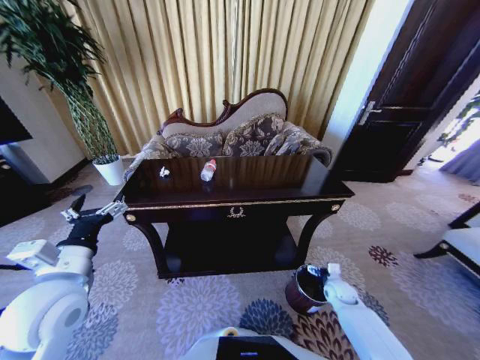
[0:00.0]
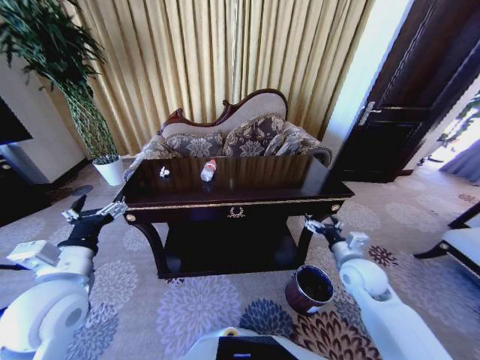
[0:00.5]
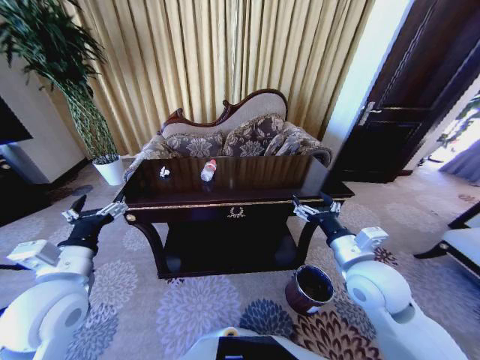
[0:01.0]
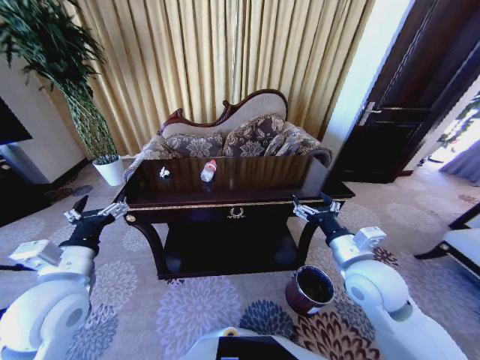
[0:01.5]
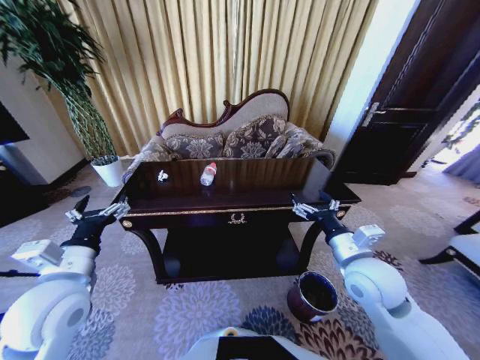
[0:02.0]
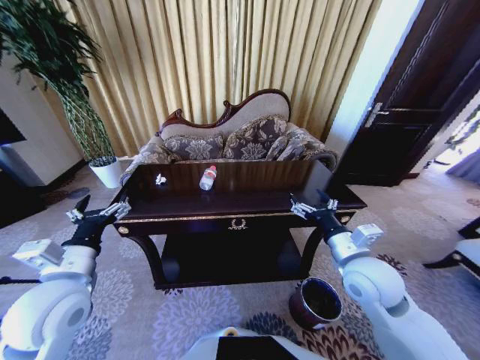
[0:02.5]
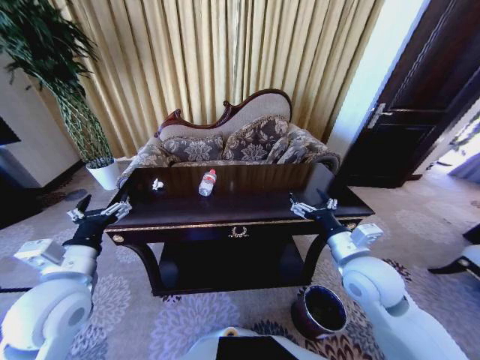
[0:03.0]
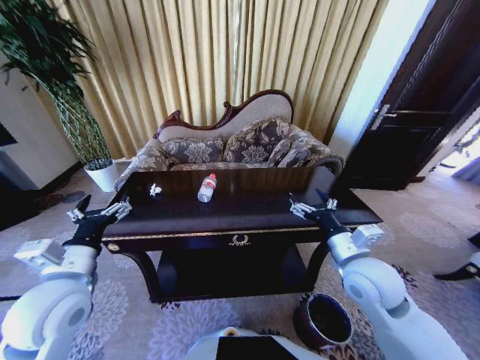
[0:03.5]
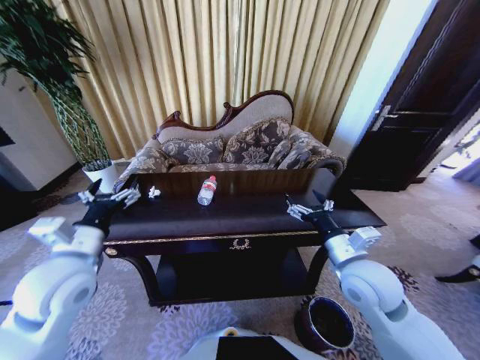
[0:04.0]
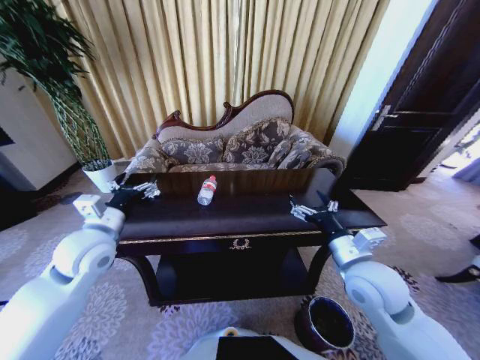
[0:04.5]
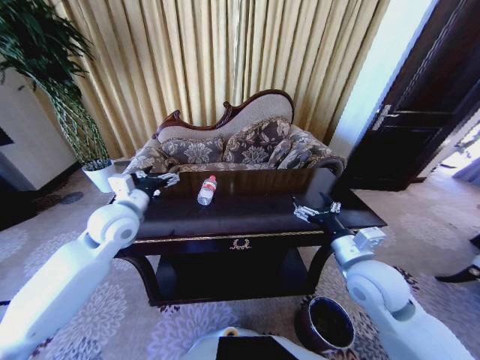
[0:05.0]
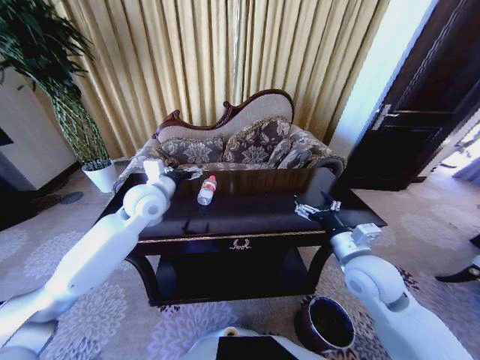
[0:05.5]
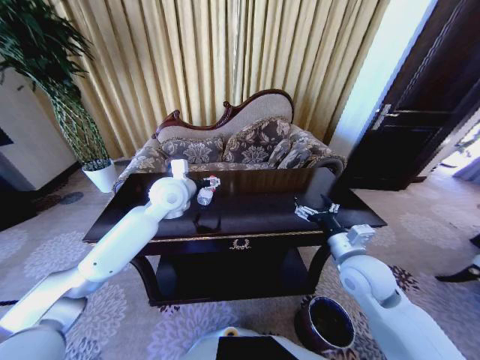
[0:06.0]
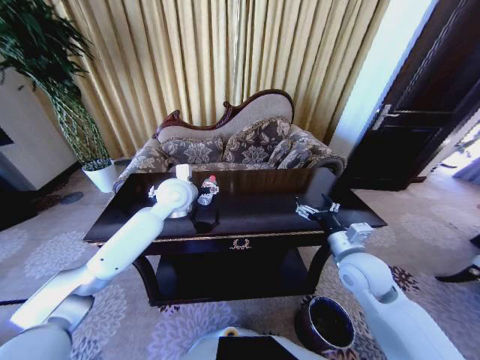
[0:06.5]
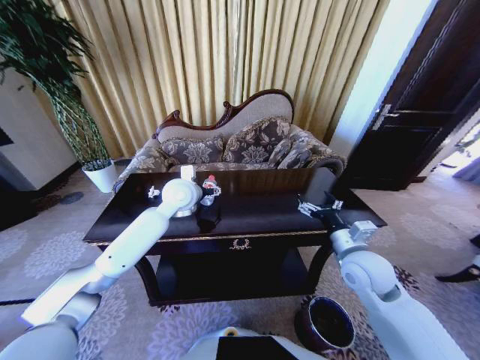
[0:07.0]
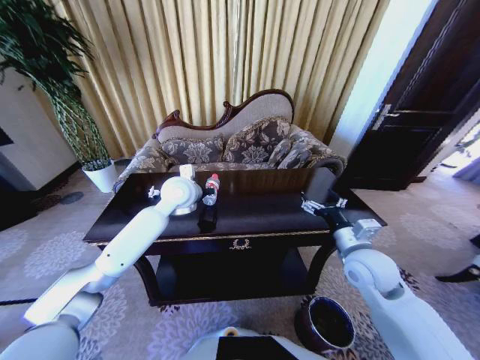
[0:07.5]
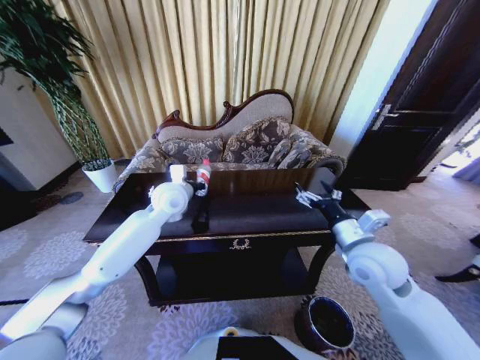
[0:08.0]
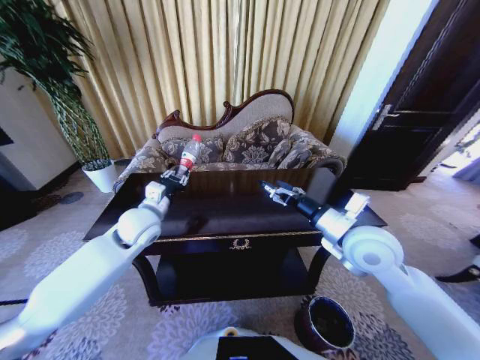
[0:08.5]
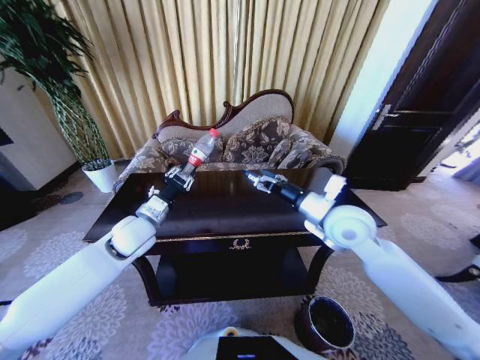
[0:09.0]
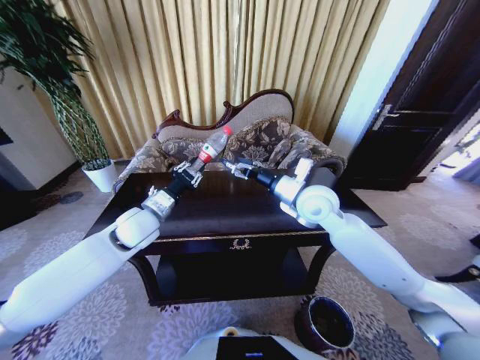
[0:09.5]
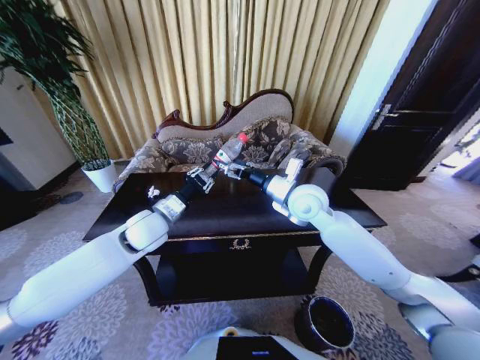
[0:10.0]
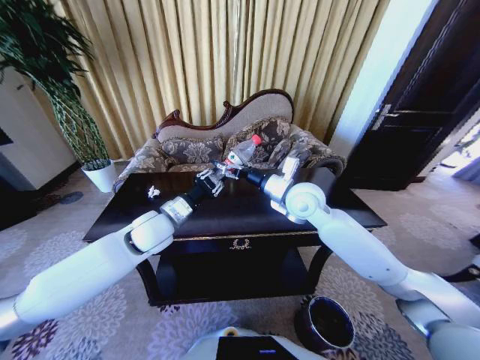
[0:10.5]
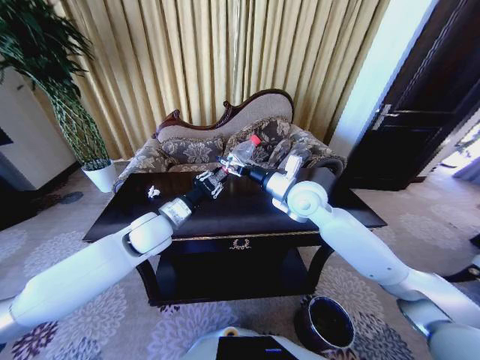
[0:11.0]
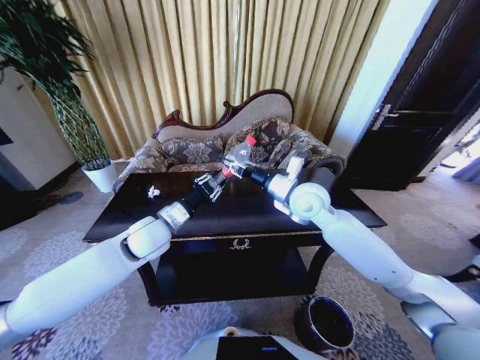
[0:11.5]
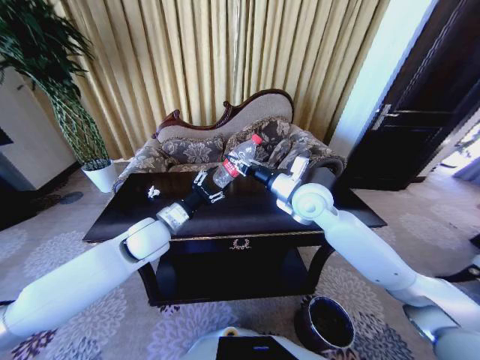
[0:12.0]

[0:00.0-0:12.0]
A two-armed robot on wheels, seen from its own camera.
Task of the whole recording: Move to the front of the table and place the trash on the table into the trash bin.
0:00.0 to 0:02.0: The right gripper moves upward, roughly 30 cm.
0:04.0 to 0:06.0: The left gripper travels forward and to the right by about 25 cm.
0:06.0 to 0:08.0: The left gripper closes up.
0:08.0 to 0:10.0: The right gripper heads forward and to the left, covering approximately 20 cm. Meanwhile the left gripper moves backward, some 10 cm.
0:10.0 to 0:12.0: The right gripper closes.

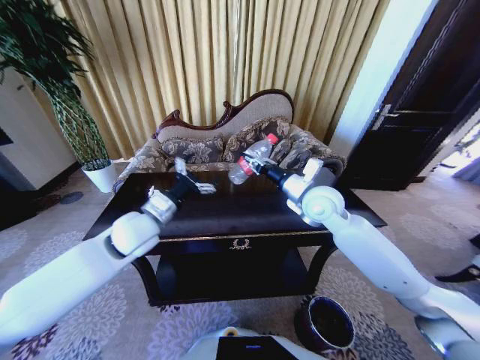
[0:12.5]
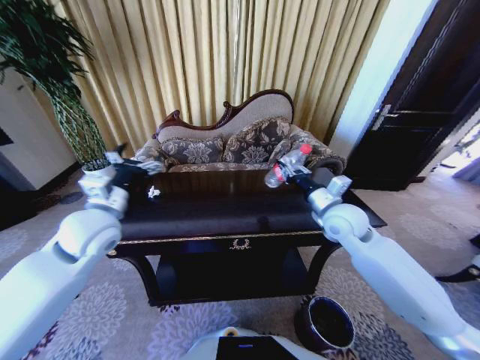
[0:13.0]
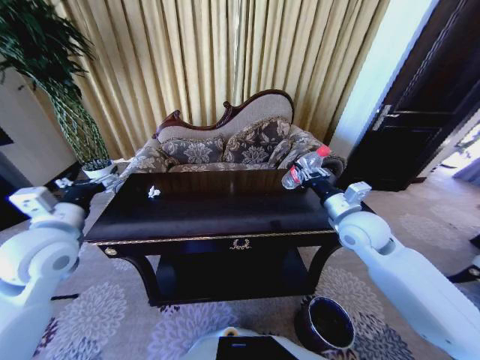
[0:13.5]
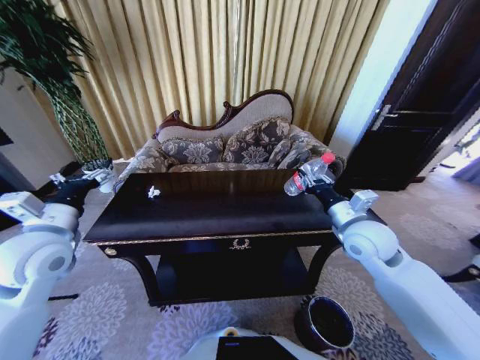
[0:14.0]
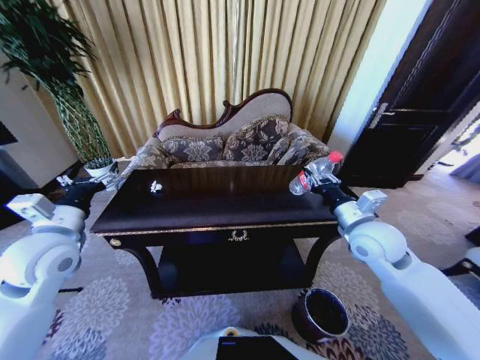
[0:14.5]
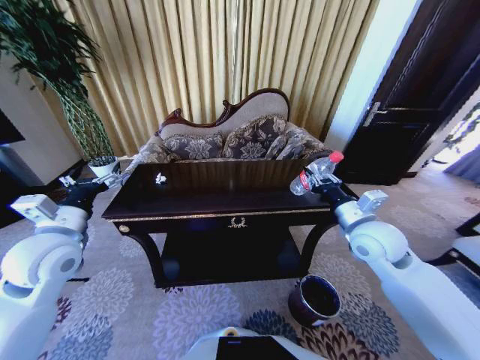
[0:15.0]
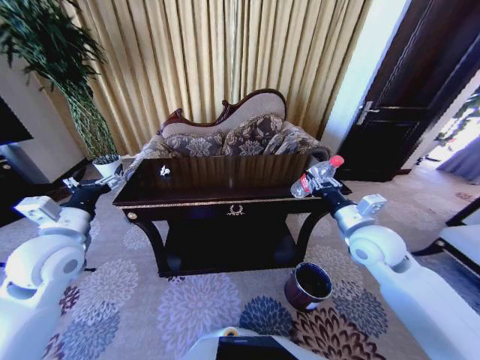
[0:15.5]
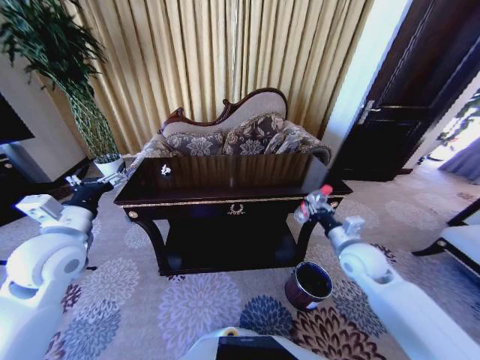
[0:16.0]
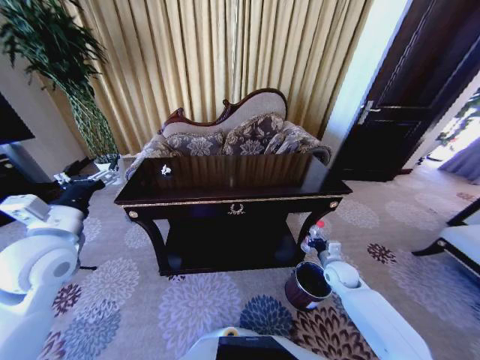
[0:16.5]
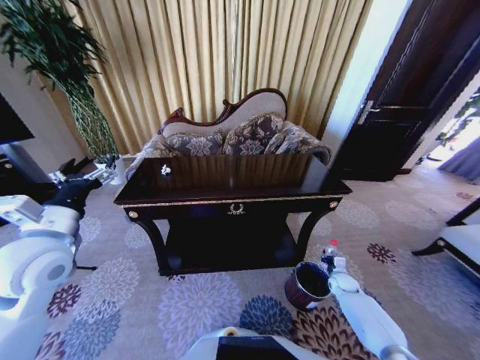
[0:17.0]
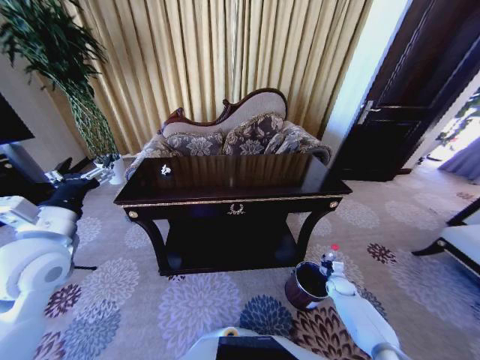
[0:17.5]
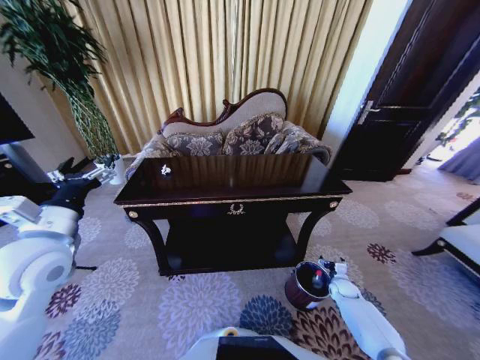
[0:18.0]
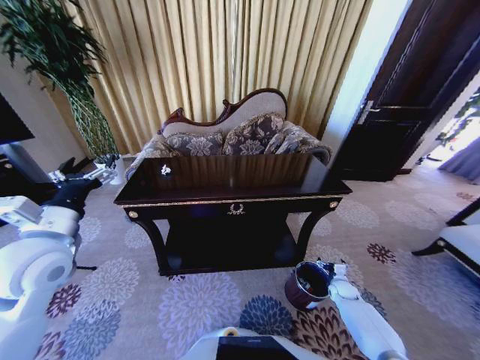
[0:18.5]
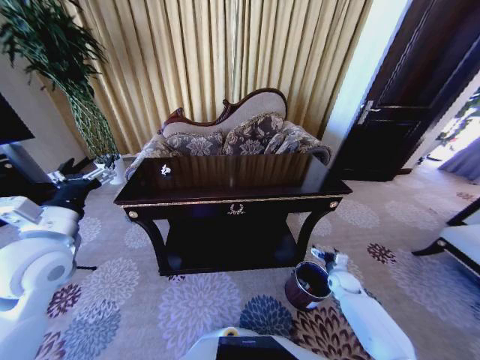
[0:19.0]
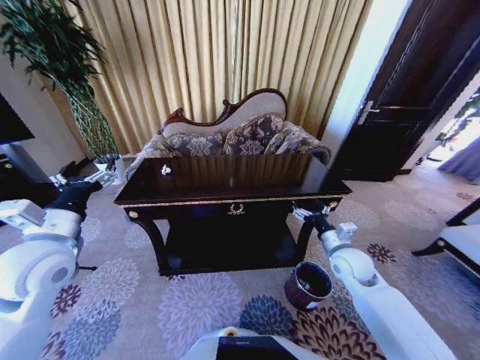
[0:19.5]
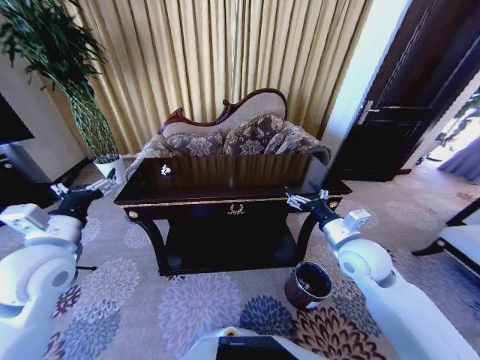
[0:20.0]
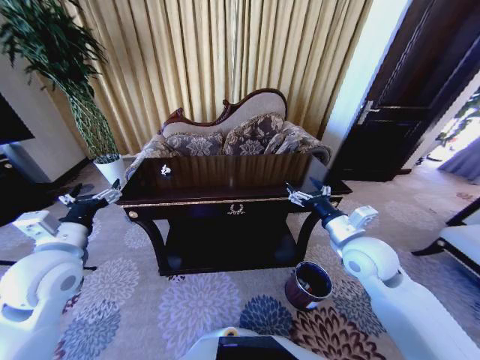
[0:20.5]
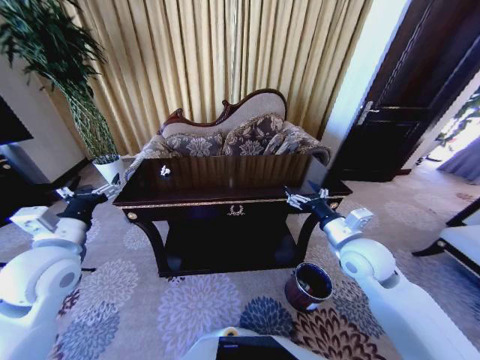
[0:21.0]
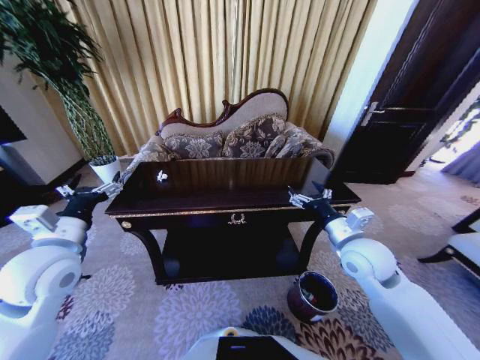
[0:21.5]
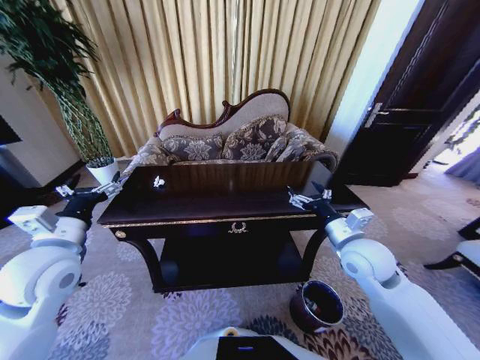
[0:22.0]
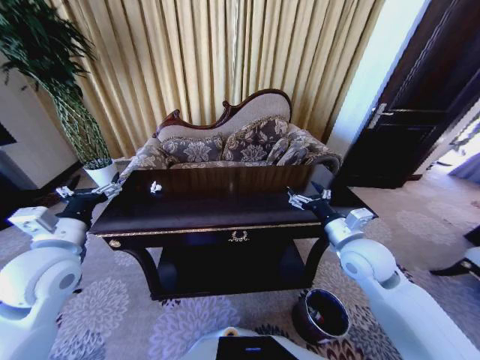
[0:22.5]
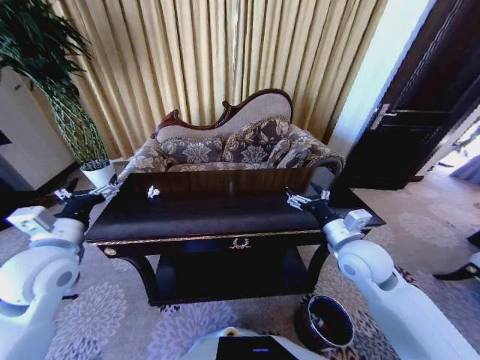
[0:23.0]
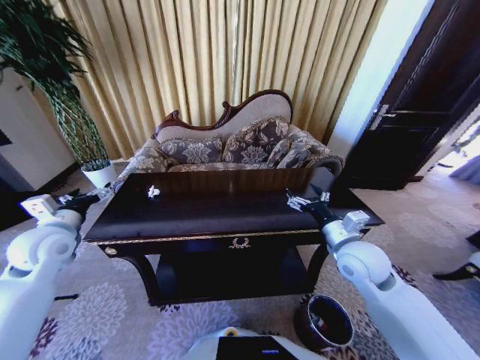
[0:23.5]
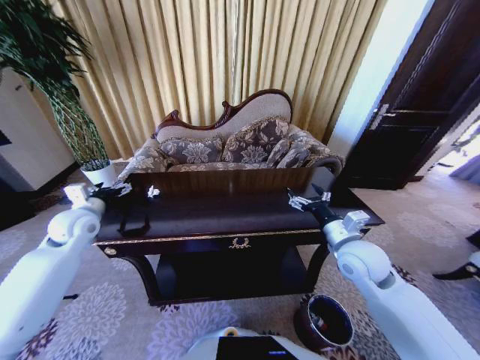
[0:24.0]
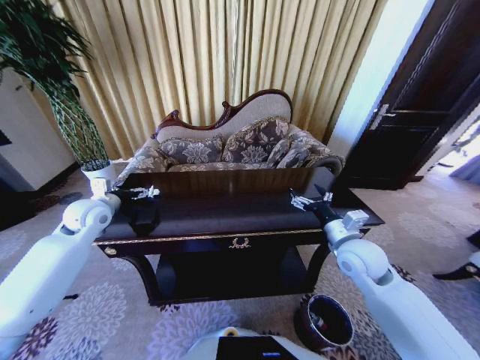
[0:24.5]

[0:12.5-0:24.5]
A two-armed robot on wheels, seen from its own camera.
Task of the whole recording: Move to the front of the table and place the trash on the table into the trash bin.
0:12.5 to 0:14.5: The left gripper shifts some 15 cm to the left and backward, while the right gripper goes roughly 15 cm backward and to the right.
0:14.5 to 0:16.5: The right gripper travels downward by some 25 cm.
0:16.5 to 0:18.5: The right gripper heads downward and to the right, covering roughly 15 cm, and opens.
0:18.5 to 0:20.5: The right gripper goes about 40 cm upward and to the left.
0:22.5 to 0:24.5: The left gripper heads forward, covering some 15 cm.

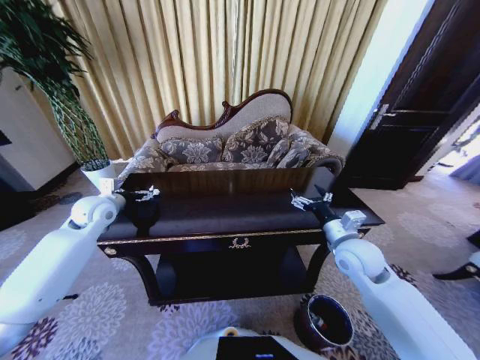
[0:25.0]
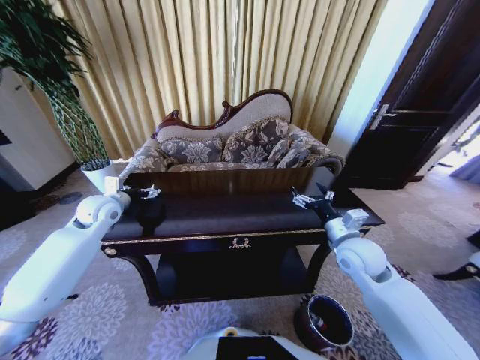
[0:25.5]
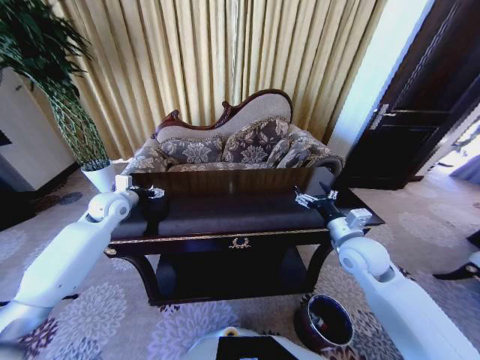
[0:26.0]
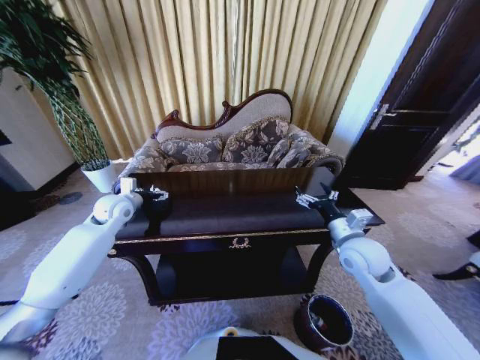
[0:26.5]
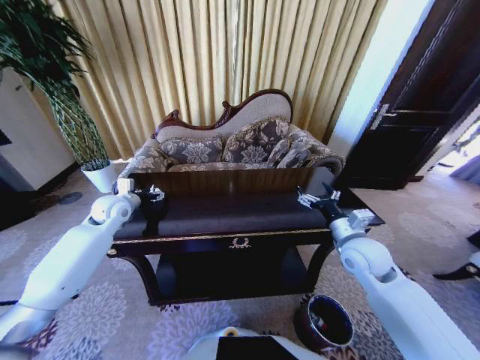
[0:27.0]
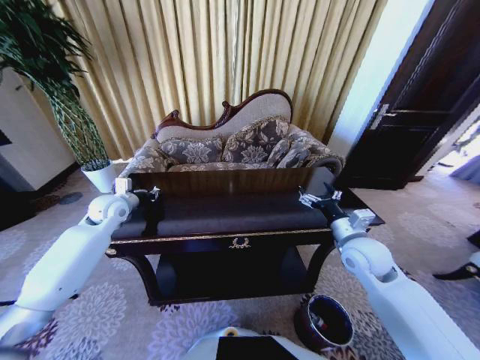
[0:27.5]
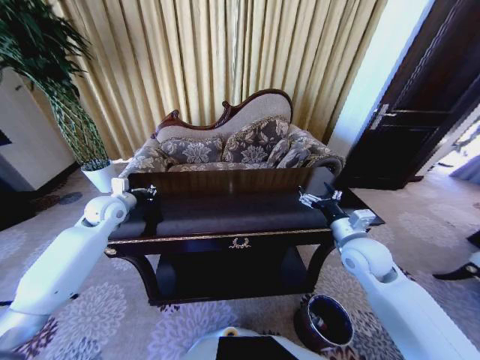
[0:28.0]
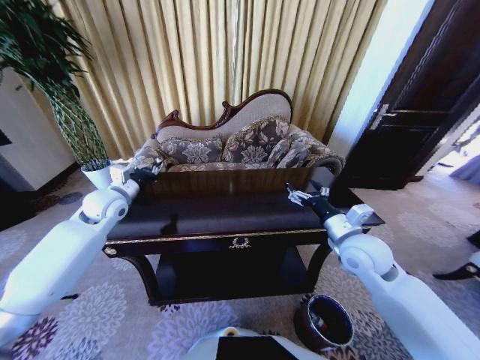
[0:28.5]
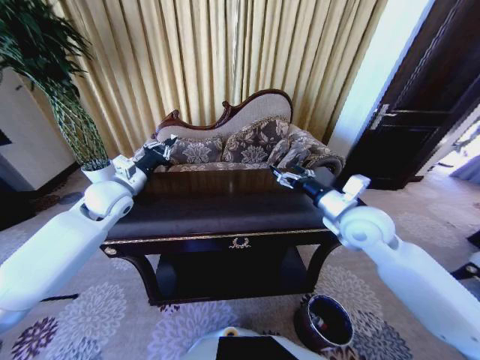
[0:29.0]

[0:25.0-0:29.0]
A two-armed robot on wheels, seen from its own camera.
Task of the whole recording: Move to the front of the table and place the trash on the table into the trash bin.
0:25.0 to 0:27.0: The grippers make only small movements.
0:27.0 to 0:29.0: The right gripper goes roughly 10 cm upward, while the left gripper goes some 10 cm upward and to the right, and closes its fingers.
